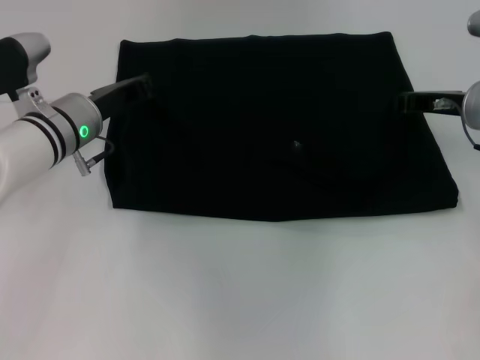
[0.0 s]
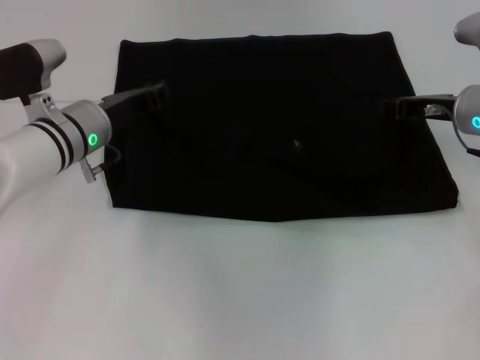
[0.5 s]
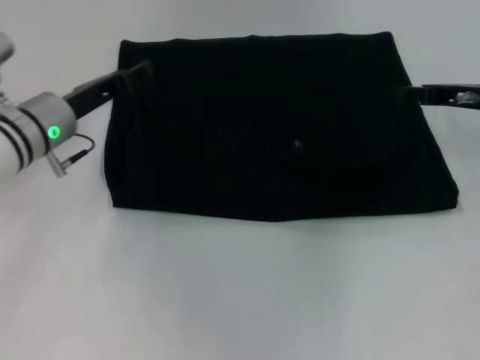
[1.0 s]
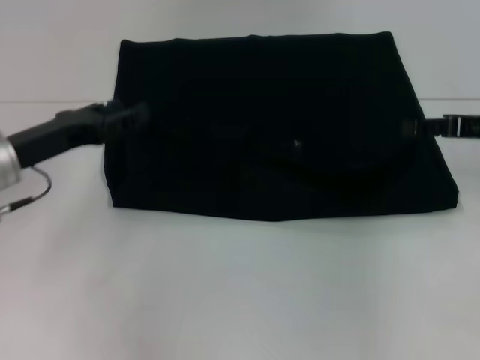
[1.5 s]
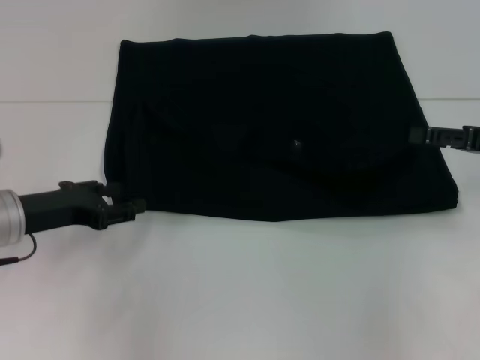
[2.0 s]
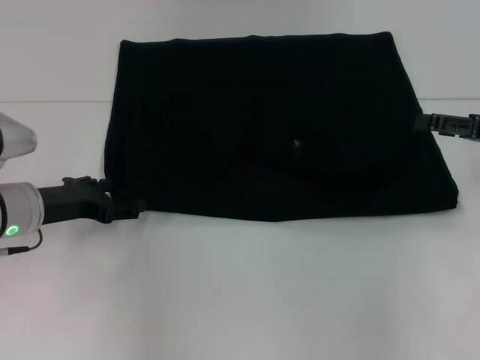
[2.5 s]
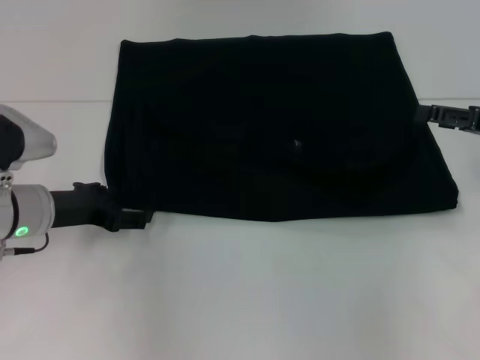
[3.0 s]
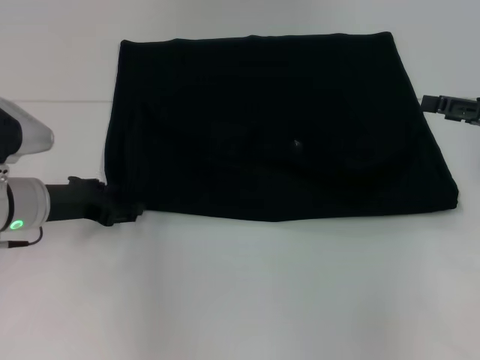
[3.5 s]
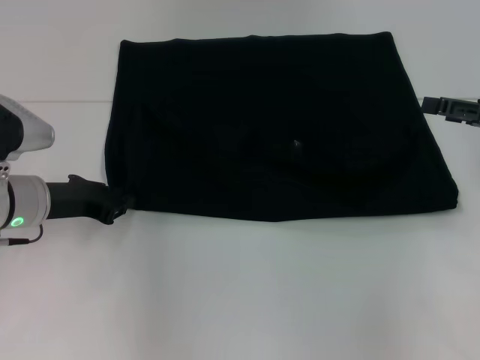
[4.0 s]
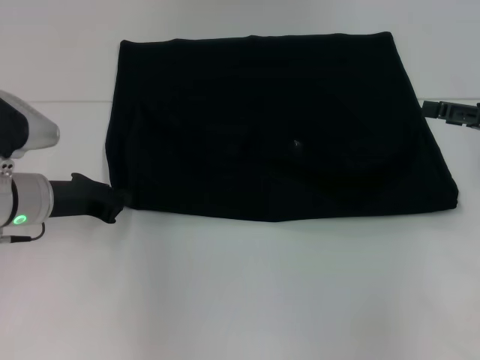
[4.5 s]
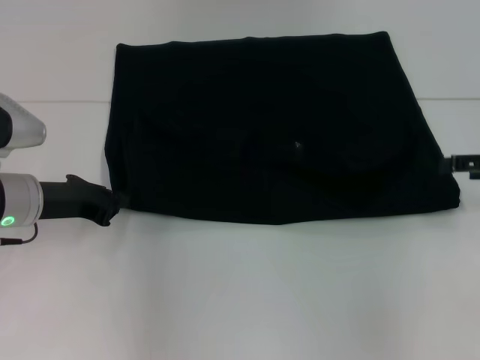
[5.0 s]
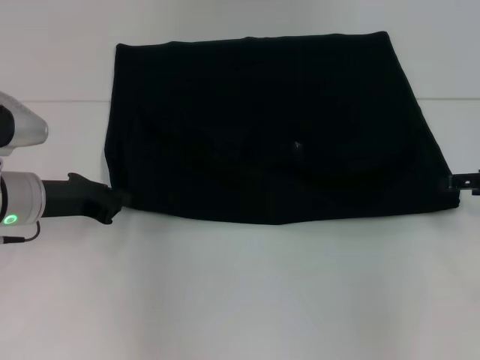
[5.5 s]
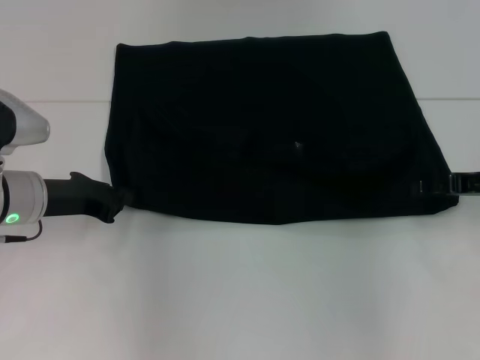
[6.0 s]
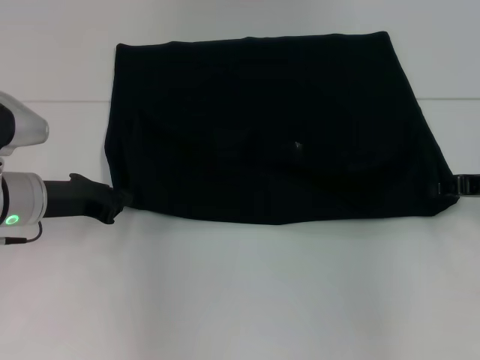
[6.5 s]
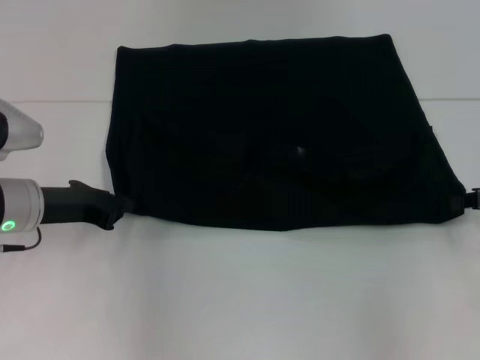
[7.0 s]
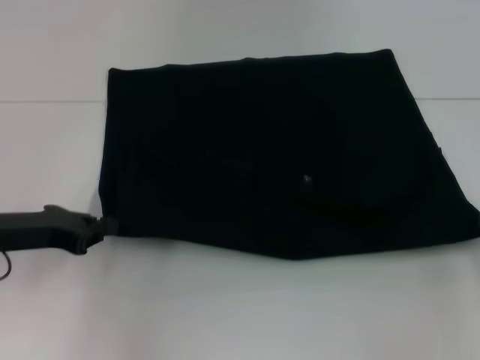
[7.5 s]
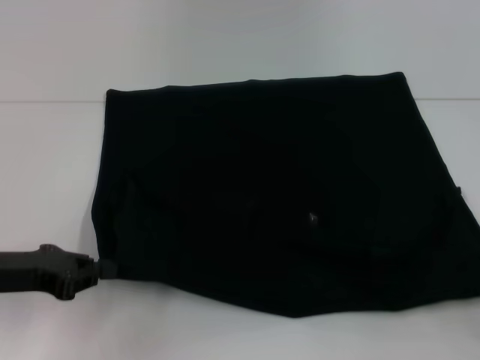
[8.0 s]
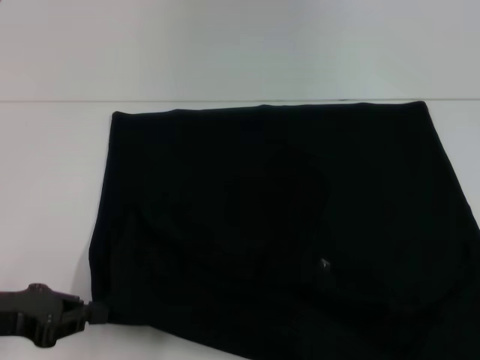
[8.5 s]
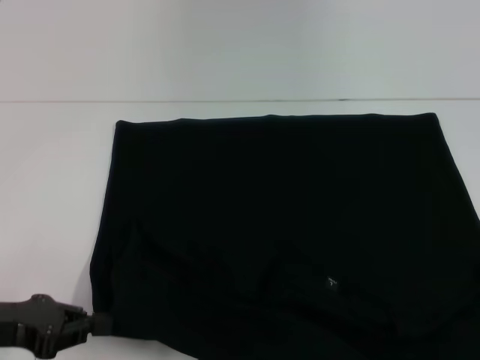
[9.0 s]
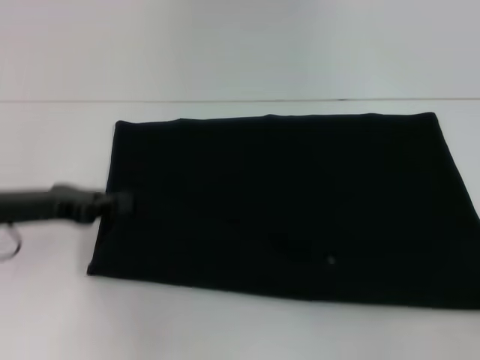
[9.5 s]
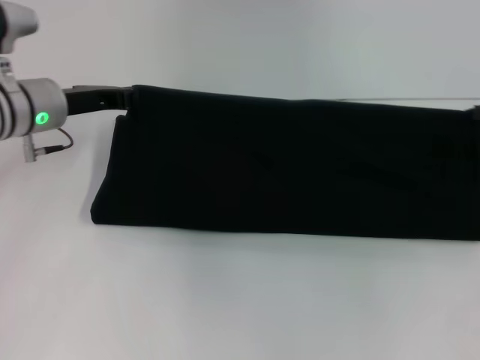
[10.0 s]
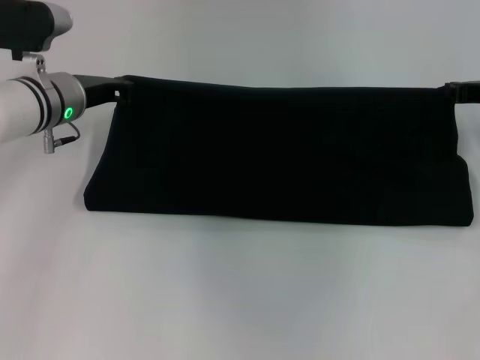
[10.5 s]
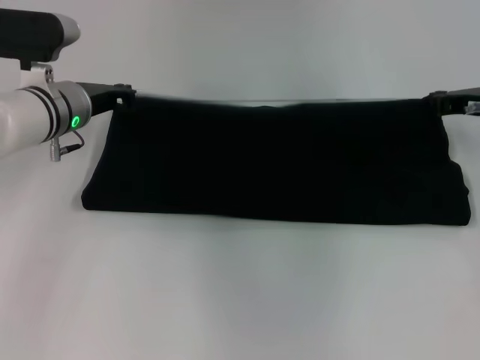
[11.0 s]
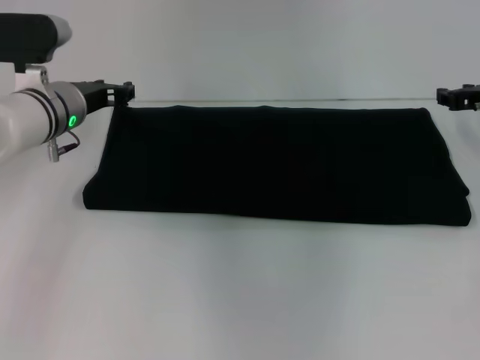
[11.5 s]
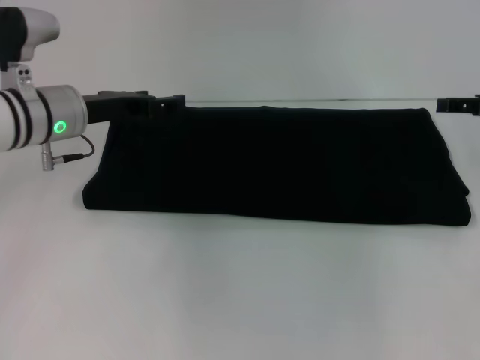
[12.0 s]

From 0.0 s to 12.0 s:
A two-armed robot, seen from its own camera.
Step, from 1.0 s to 8.5 s: Pull the clothes with your left hand.
Step, from 1.0 s to 8.5 s: Pull the clothes with your right hand.
Step, from 9.0 s to 11.0 s: Fold the clothes with your right hand.
From 0.0 s to 2.0 s: The left gripper is displaced backward and to the left by roughly 10 cm, and opens its fingers. Meanwhile the right gripper shifts some 10 cm backward and to the right, and opens.
From 2.0 s to 4.0 s: The grippers make only small movements.
From 4.0 s to 6.0 s: The left gripper closes its fingers, while the right gripper changes place by roughly 5 cm.
From 6.0 s to 8.0 s: The left gripper is displaced backward by roughly 10 cm. The right gripper travels backward and to the right by roughly 15 cm, and closes.
From 8.0 s to 10.0 s: The left gripper heads forward and to the right, covering approximately 15 cm; the right gripper shifts about 15 cm forward.
From 10.0 s to 12.0 s: The right gripper opens up; the left gripper opens up.

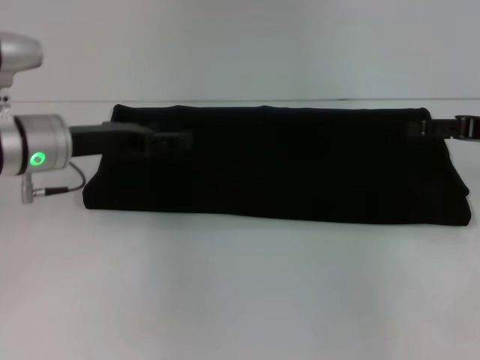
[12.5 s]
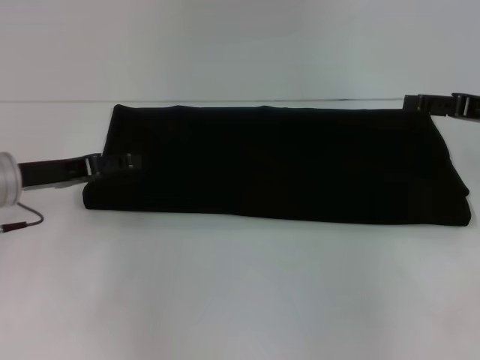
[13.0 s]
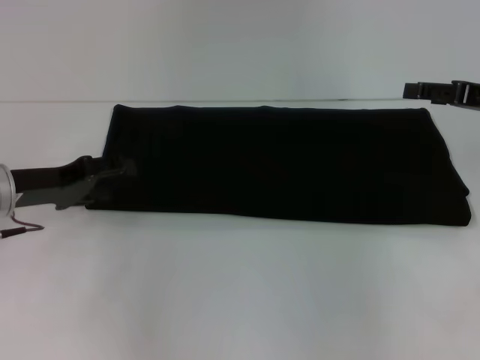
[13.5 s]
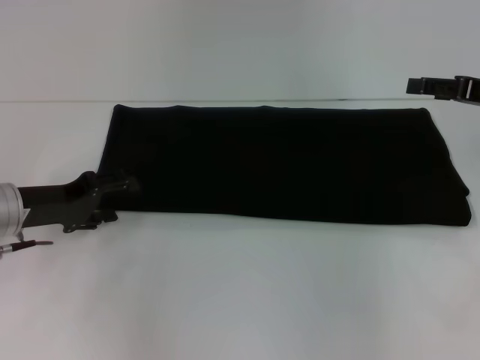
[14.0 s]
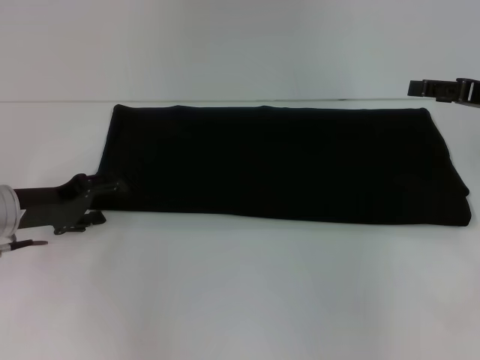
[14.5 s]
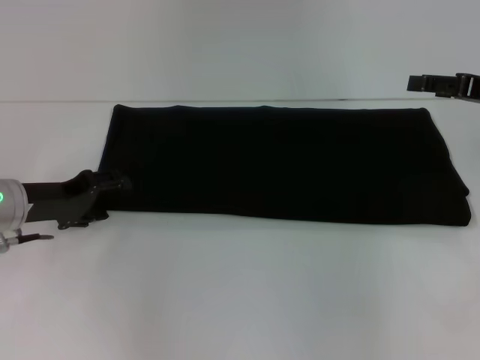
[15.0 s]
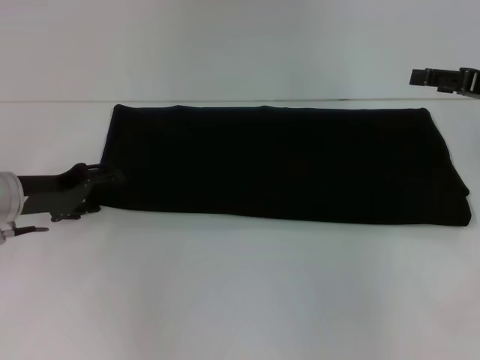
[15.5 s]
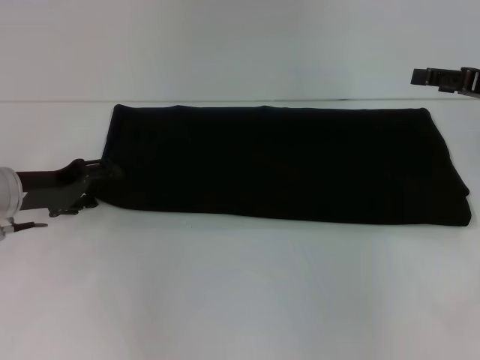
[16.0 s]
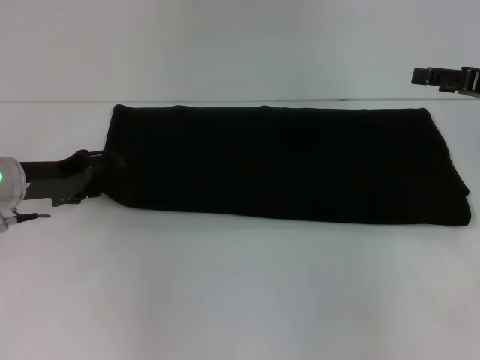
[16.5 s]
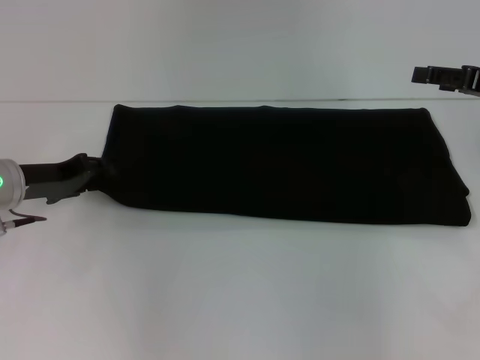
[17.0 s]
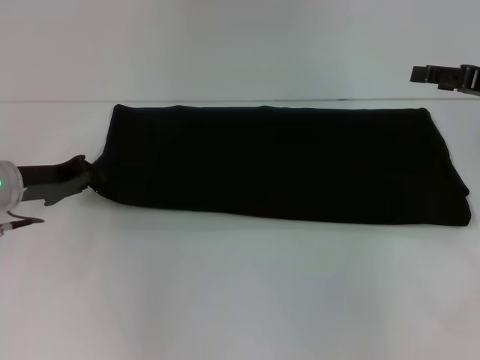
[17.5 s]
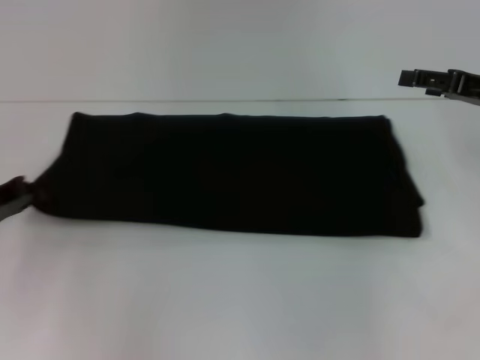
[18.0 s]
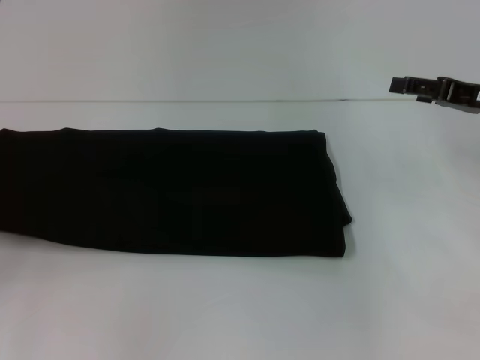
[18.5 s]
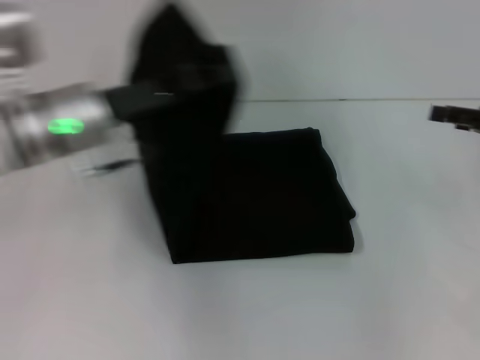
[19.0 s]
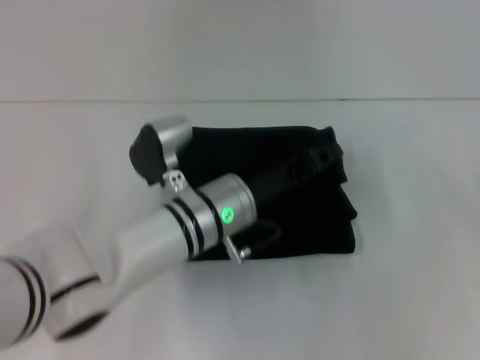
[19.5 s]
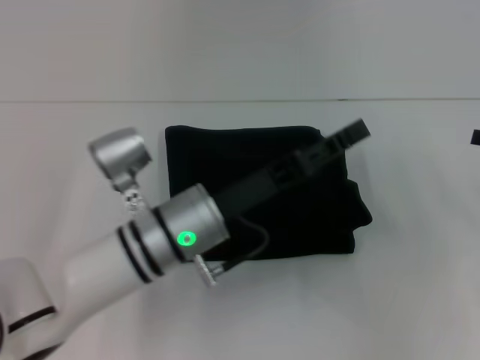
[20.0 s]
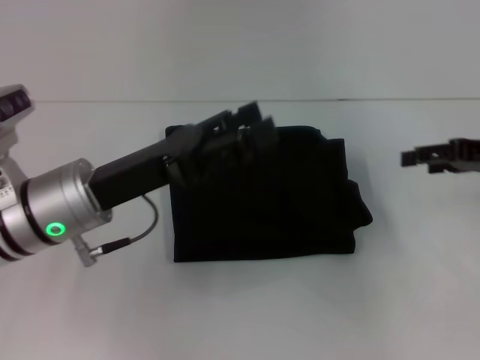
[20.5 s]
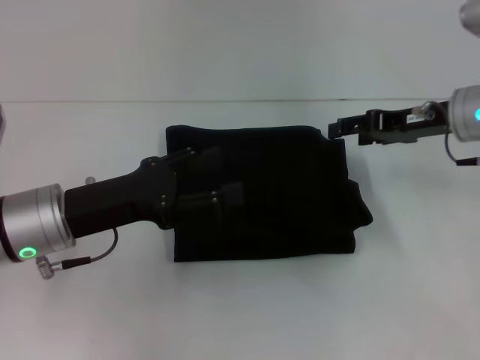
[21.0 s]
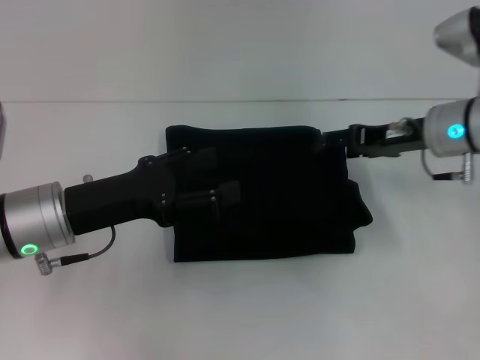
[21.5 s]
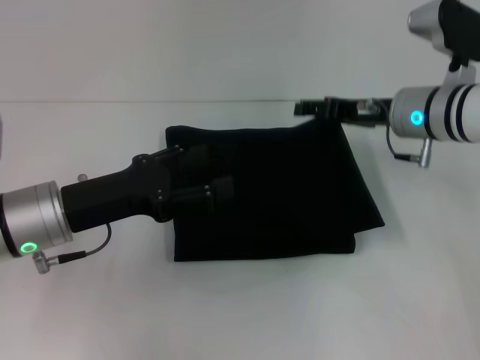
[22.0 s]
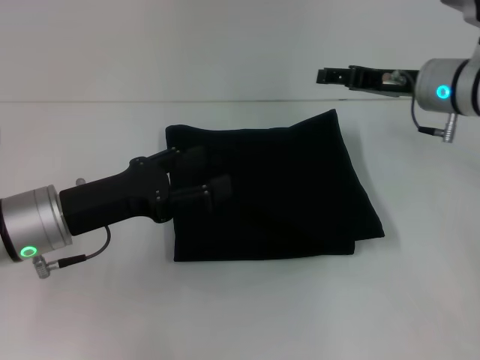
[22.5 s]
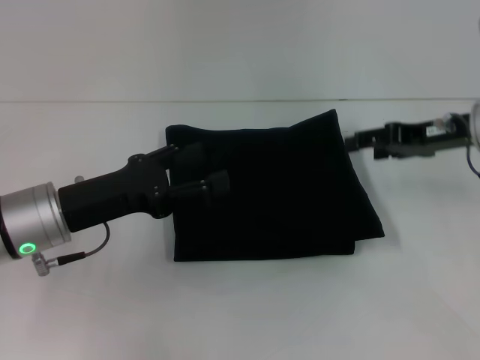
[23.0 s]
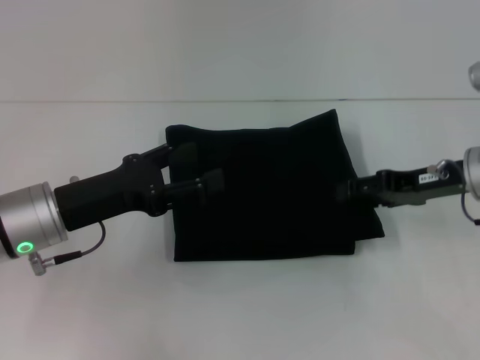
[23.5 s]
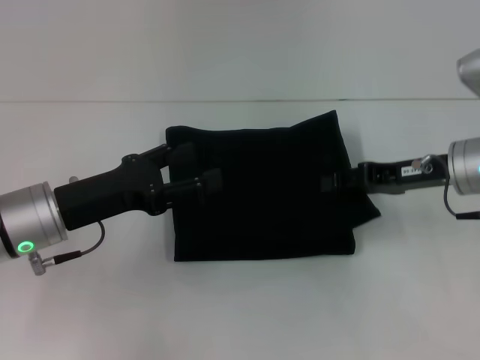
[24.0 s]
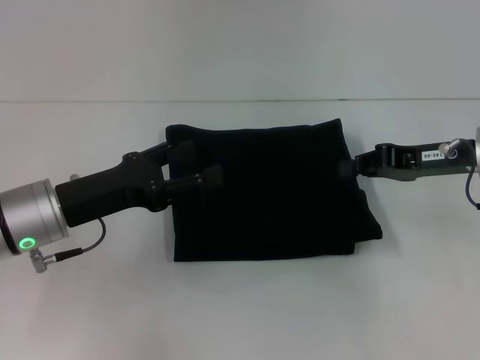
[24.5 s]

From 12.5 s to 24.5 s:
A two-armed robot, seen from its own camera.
Step, from 12.5 s to 19.5 s: Fold the clothes with your left hand.
From 12.5 s to 14.5 s: The left gripper travels to the left and downward by approximately 10 cm.
From 14.5 s to 16.5 s: The grippers make only small movements.
From 16.5 s to 18.5 s: The left gripper heads to the left and backward, covering roughly 15 cm, and closes up.
From 18.5 s to 20.5 s: The left gripper heads to the right, covering approximately 25 cm, and opens. The right gripper travels to the right and back again, some 10 cm each way.
From 20.5 s to 22.5 s: The right gripper travels to the left and forward by approximately 15 cm.
From 22.5 s to 24.5 s: The right gripper heads backward, covering some 5 cm, and closes.

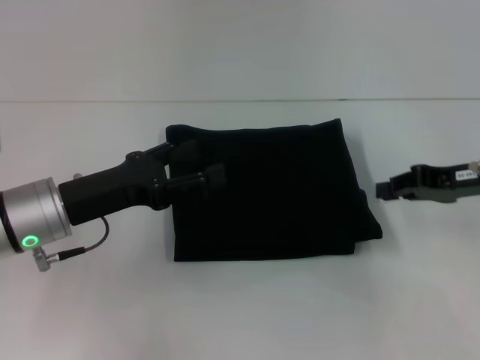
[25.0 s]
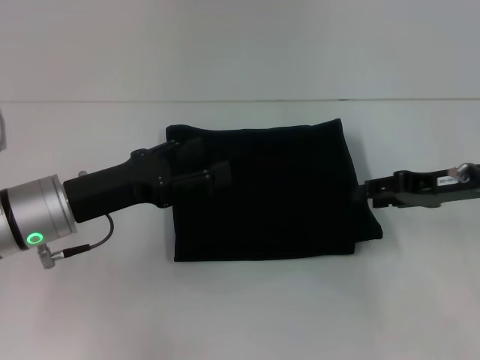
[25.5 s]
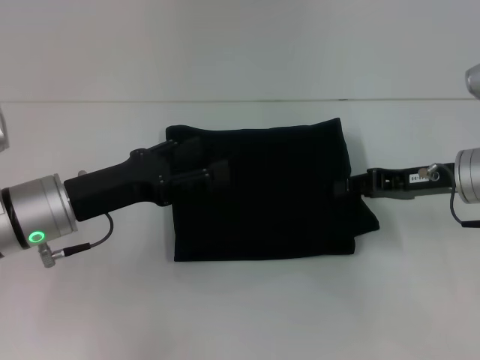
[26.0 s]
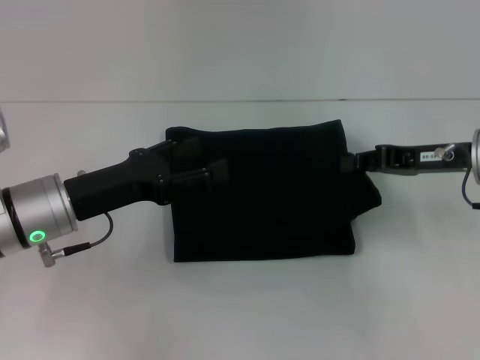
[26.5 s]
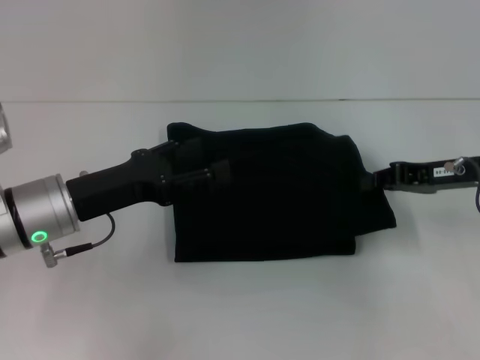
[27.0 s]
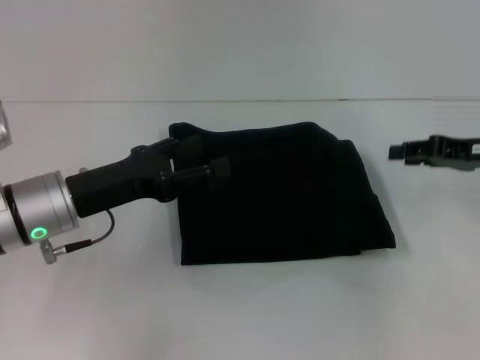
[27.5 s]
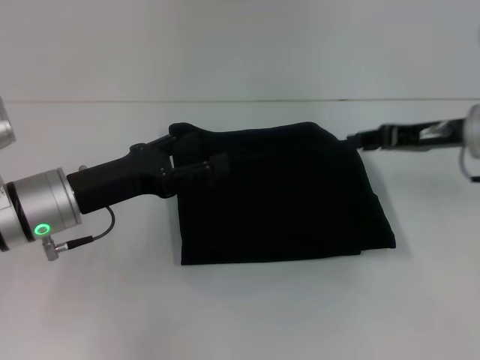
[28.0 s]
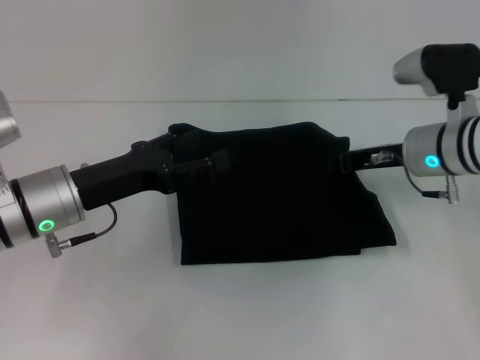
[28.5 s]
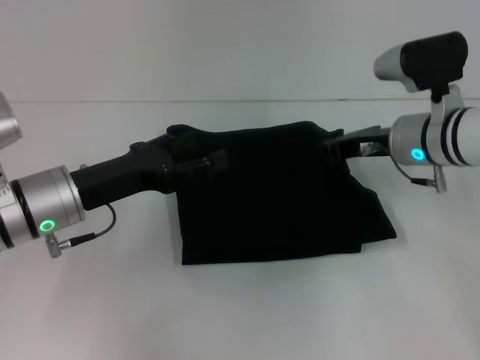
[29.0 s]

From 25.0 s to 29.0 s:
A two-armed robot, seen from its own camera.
From 25.0 s to 27.0 s: The right gripper opens and closes again.
From 27.0 s to 29.0 s: The right gripper shifts some 10 cm to the left, and opens, then closes once more.
